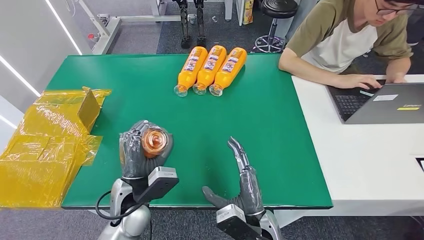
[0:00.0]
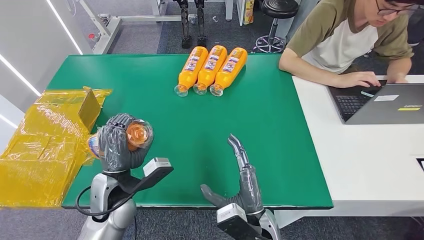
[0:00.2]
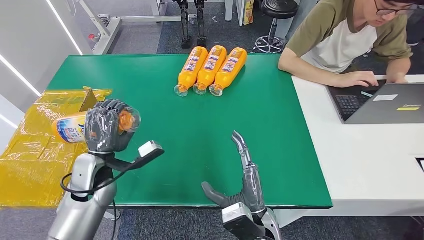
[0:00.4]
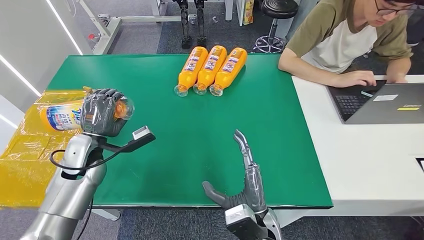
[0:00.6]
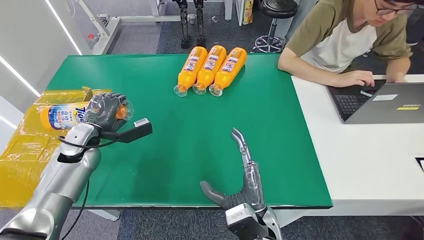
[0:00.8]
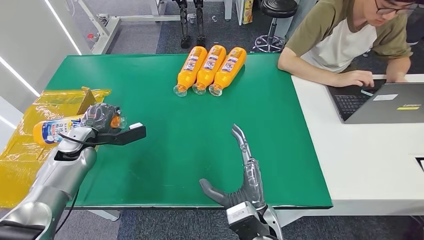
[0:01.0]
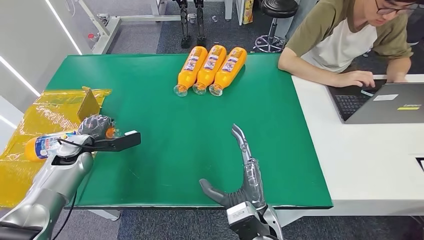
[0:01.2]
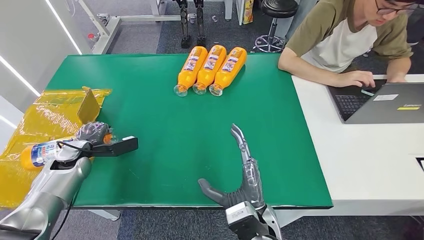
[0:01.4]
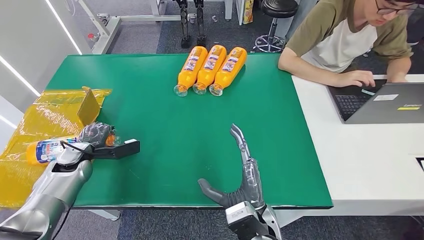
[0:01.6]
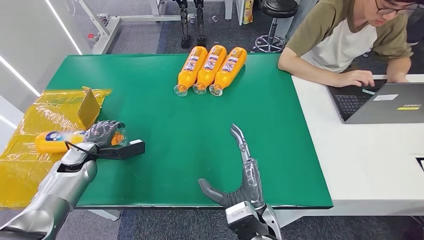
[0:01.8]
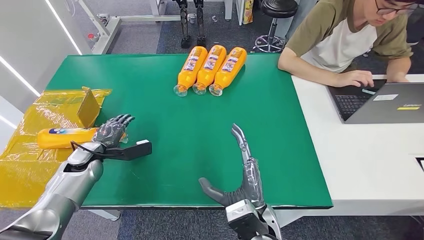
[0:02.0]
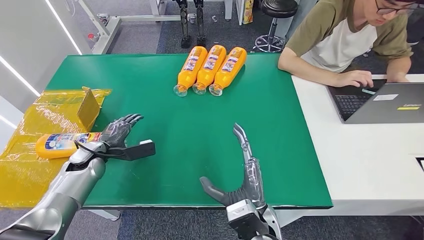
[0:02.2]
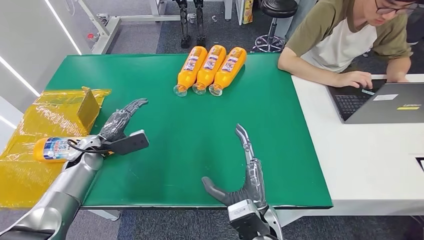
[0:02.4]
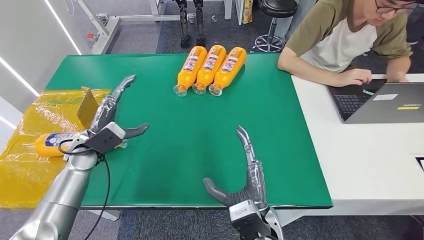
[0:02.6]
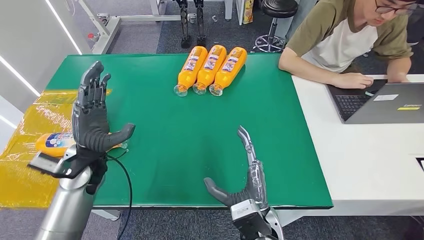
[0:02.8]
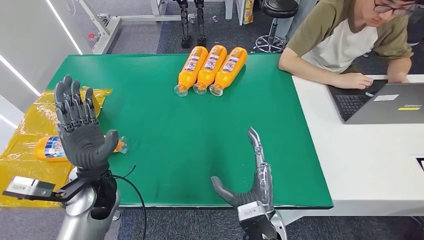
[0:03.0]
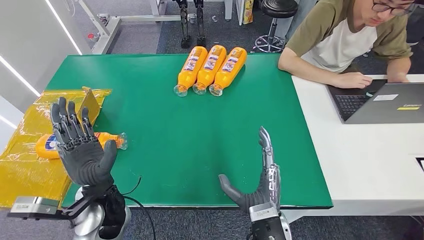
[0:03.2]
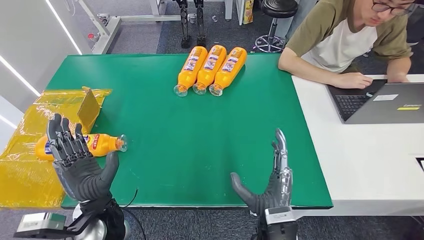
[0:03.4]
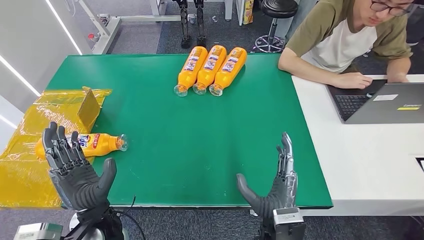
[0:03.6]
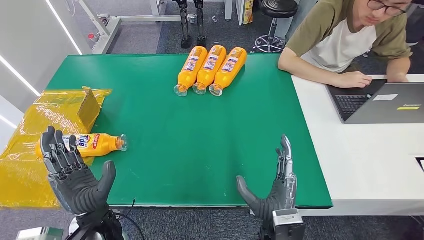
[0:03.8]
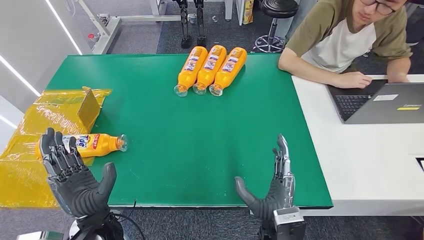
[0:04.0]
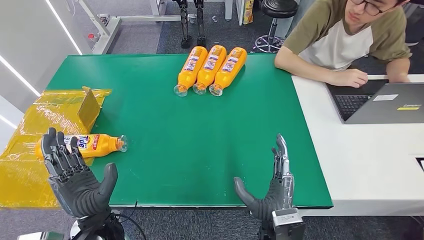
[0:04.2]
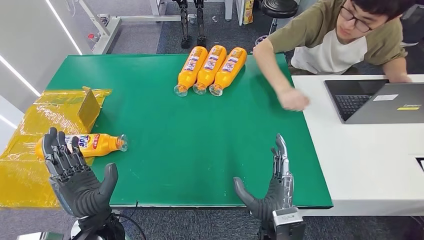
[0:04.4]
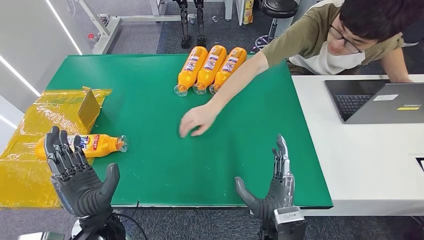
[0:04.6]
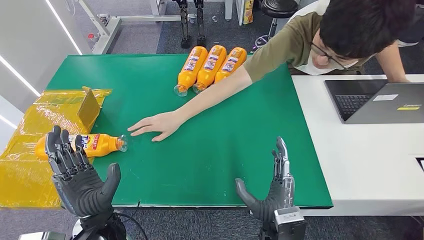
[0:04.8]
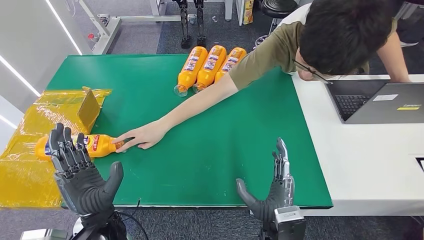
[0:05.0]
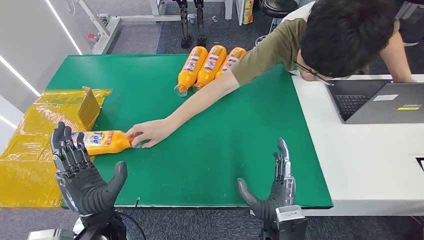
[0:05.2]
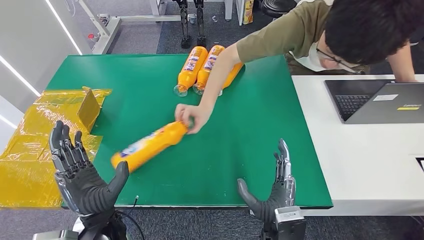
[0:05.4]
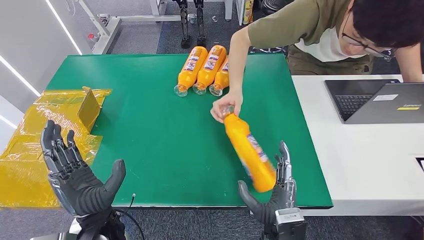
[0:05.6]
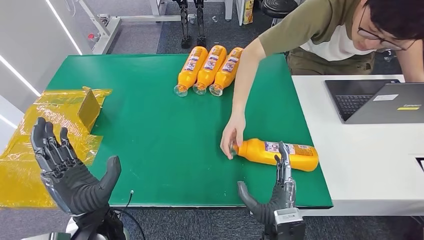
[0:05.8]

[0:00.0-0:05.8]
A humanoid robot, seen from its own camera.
Step, 0:00.0 to 0:05.8: Turn the bottle to the front side.
0:00.0 to 0:01.4: The left hand shifts some 30 cm to the left and forward.
0:01.4 to 0:02.8: The left hand travels to the right and upward by about 15 cm.
0:04.4 to 0:05.8: There are only small adjustments of the hands.

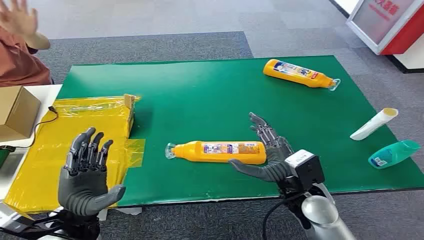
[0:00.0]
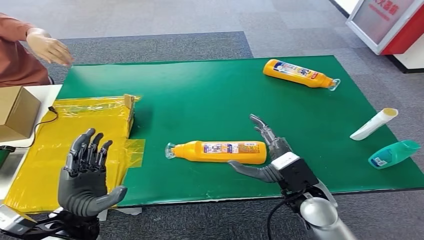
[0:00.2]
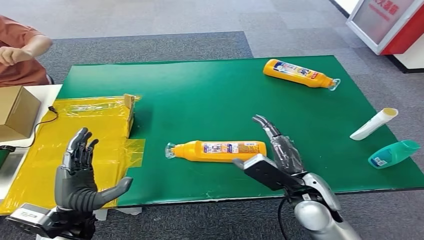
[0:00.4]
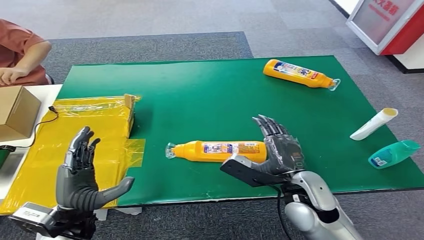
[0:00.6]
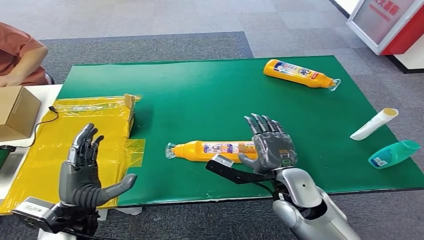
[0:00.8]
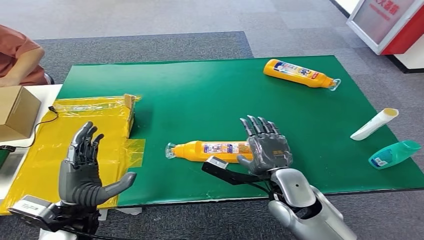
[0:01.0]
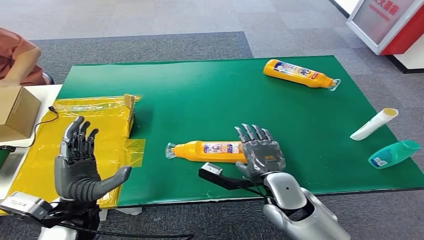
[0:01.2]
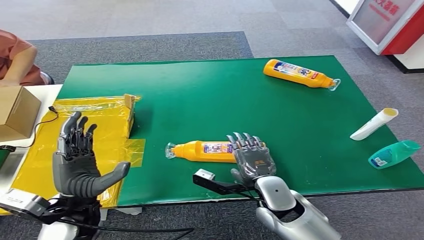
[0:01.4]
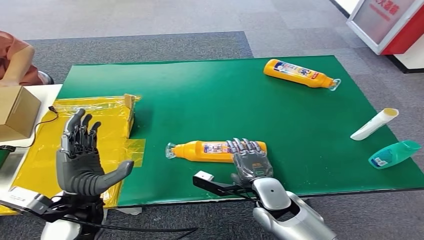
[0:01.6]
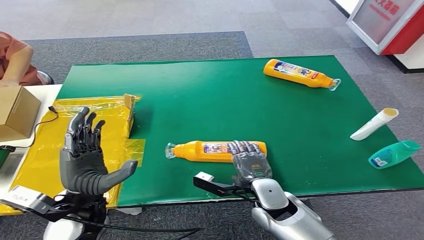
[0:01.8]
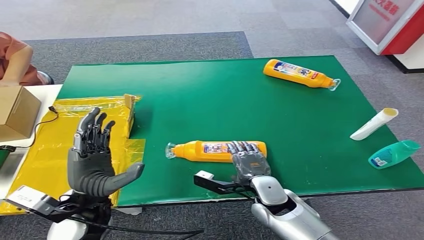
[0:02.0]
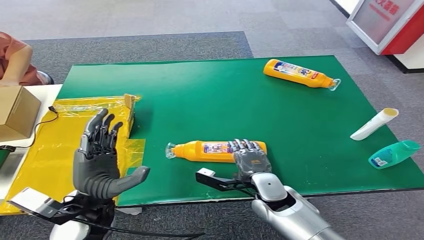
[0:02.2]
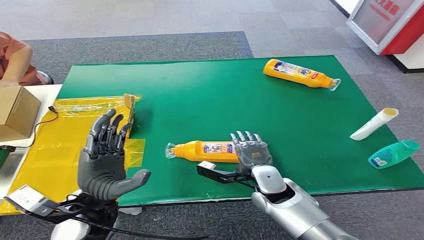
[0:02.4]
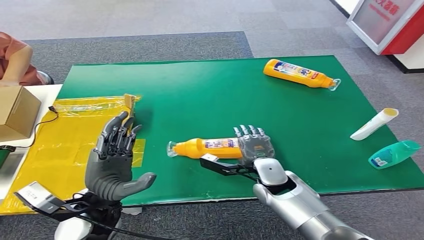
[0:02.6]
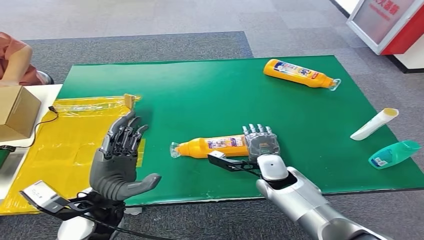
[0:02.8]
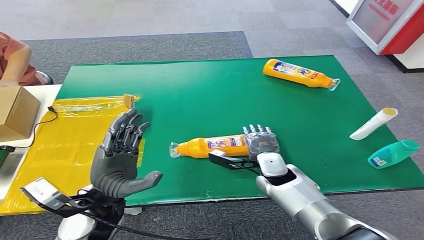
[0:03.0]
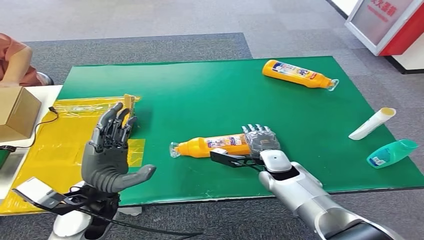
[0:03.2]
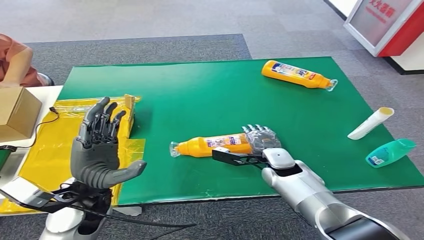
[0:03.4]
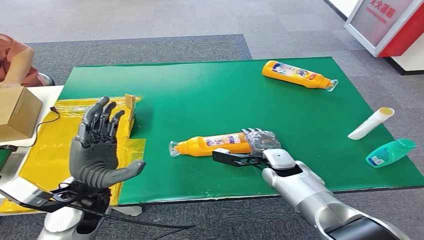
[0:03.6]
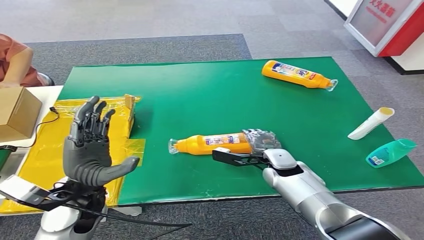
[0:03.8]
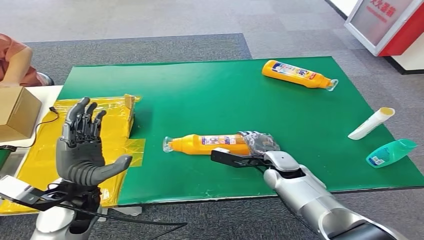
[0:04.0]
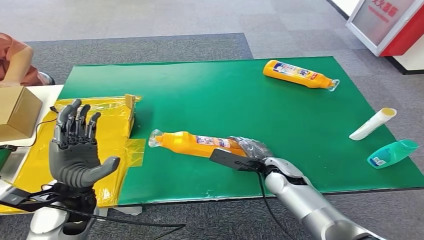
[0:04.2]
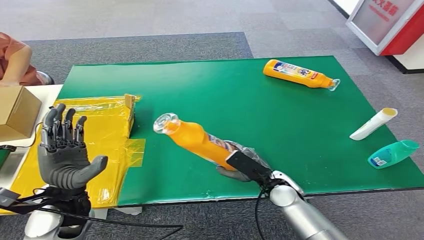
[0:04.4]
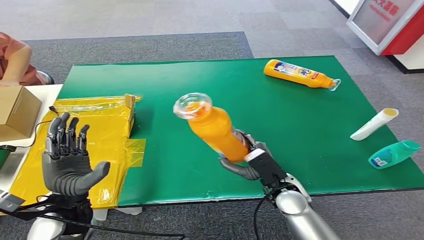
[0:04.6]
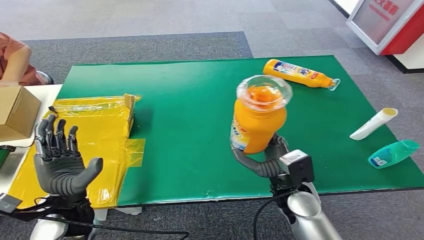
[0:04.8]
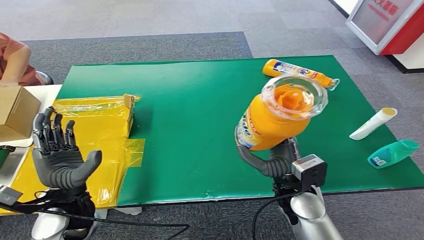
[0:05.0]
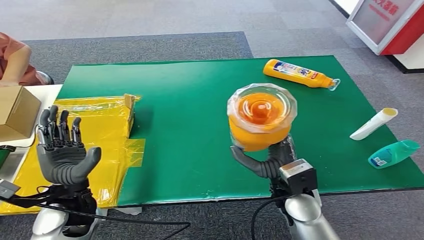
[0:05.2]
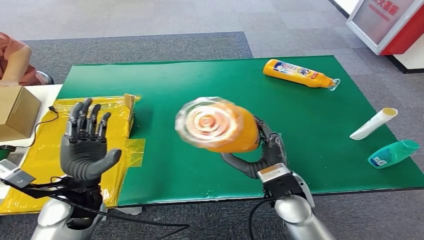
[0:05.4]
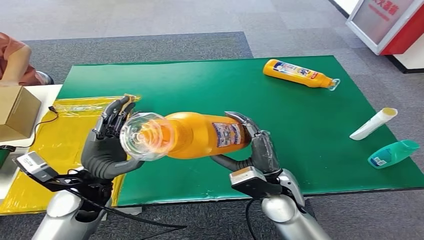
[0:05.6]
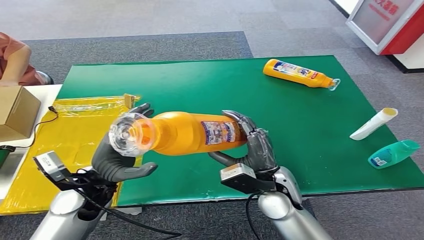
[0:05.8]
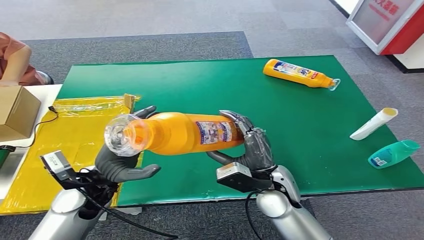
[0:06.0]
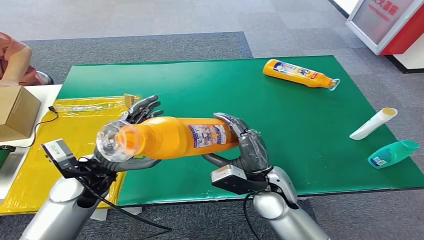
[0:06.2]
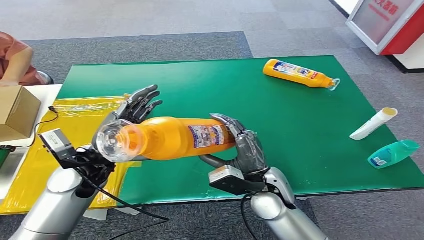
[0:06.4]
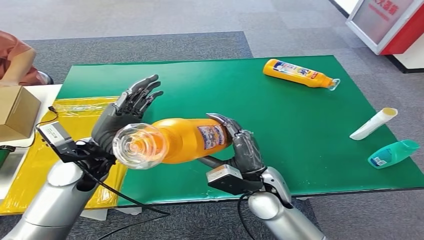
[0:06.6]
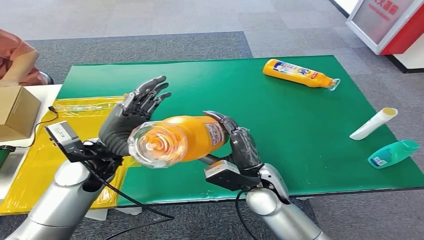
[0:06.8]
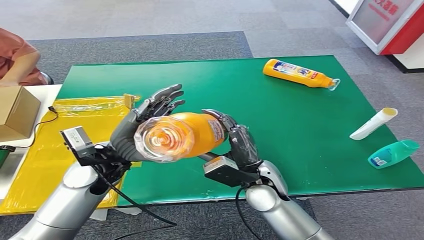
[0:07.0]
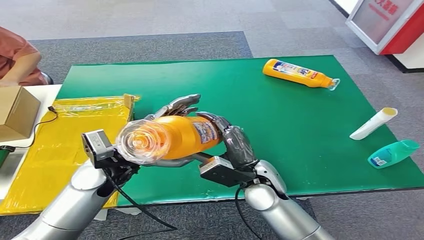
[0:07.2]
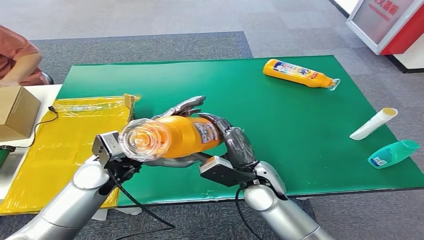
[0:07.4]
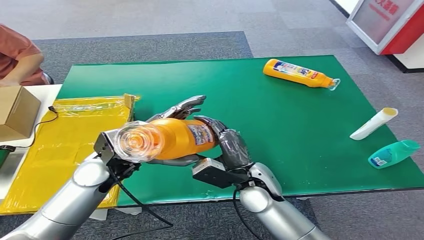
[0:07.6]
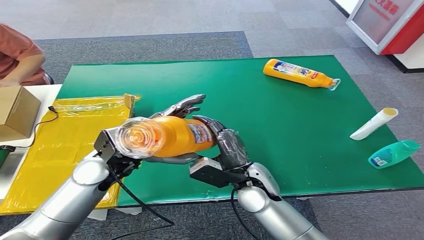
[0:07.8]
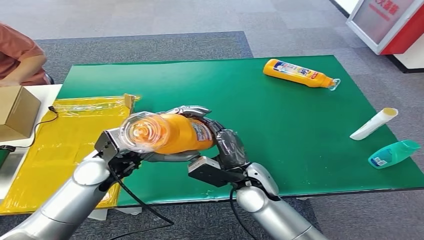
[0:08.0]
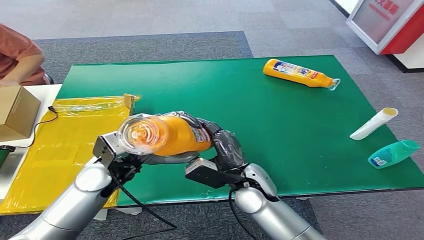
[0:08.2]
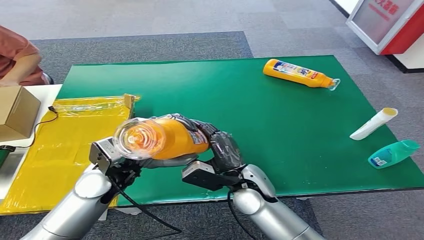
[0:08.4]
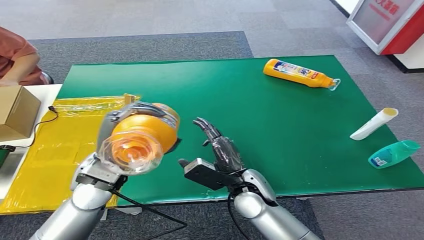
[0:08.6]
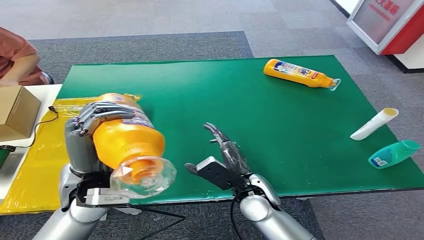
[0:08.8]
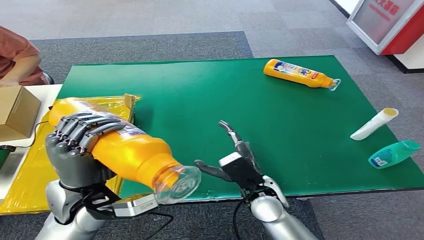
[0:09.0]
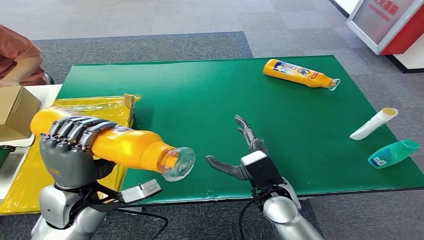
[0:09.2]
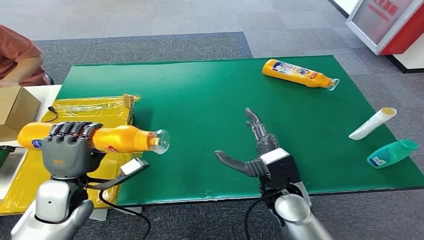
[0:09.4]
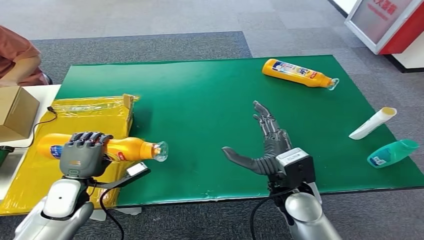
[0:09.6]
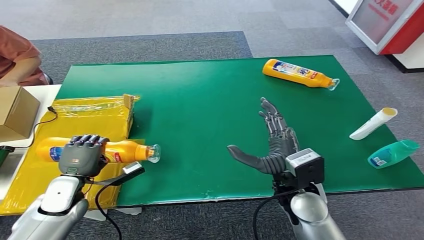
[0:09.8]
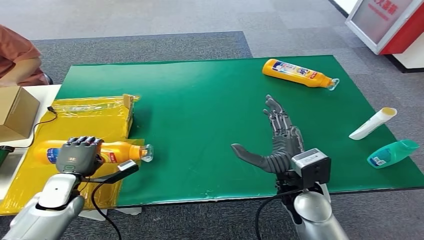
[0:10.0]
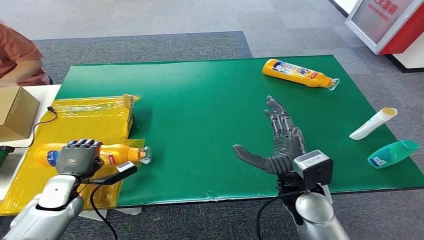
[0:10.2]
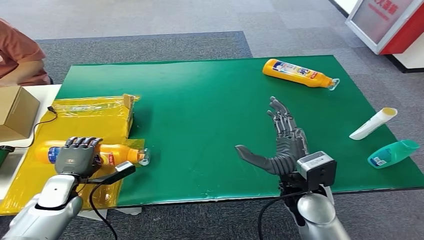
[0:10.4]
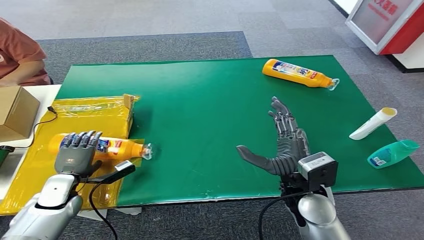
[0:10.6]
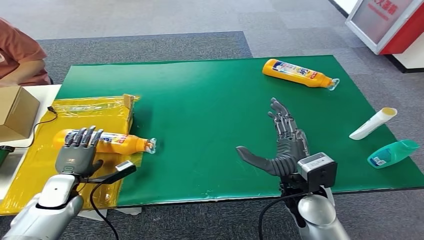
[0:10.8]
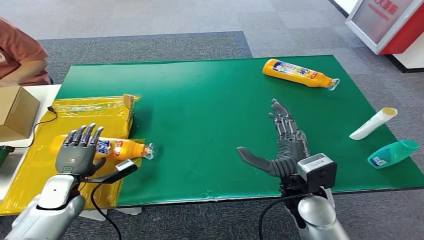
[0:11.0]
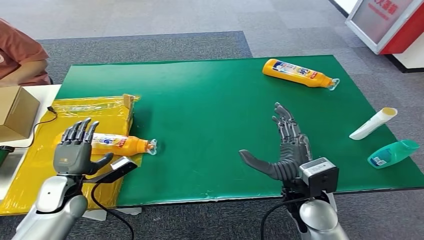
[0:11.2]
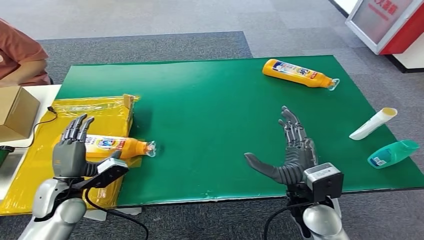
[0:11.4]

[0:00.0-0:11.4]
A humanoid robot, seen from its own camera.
Step, 0:00.0 to 0:04.4: Pick up the bottle from the table.
Step, 0:04.6 to 0:11.4: Turn the bottle to the front side.
0:01.4 to 0:02.8: The right hand moves forward, approximately 10 cm.
0:05.6 to 0:07.2: The left hand changes place by roughly 5 cm.
0:10.0 to 0:11.4: The left hand moves about 5 cm.
